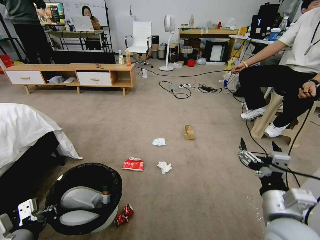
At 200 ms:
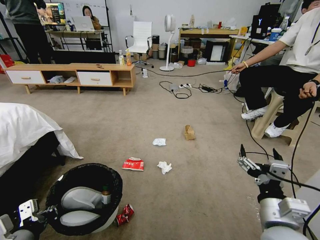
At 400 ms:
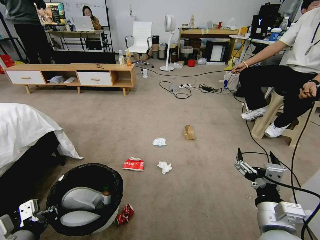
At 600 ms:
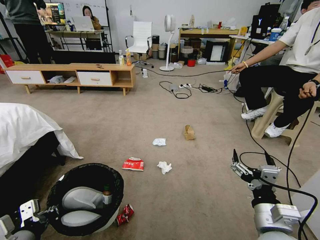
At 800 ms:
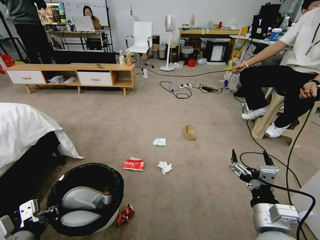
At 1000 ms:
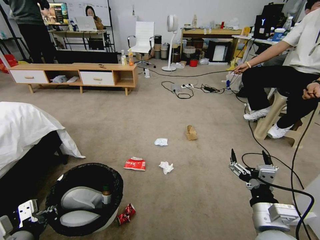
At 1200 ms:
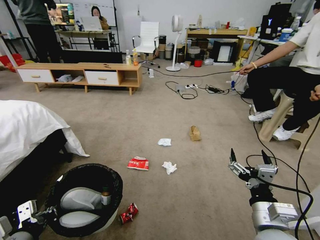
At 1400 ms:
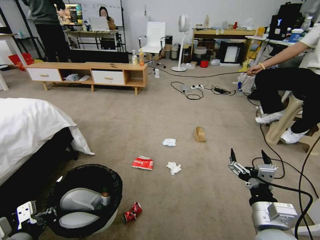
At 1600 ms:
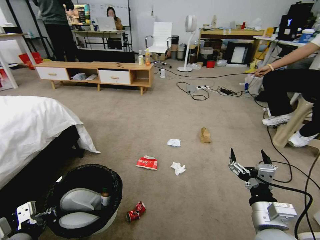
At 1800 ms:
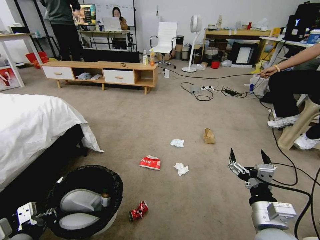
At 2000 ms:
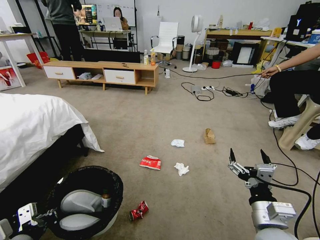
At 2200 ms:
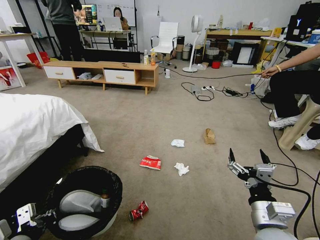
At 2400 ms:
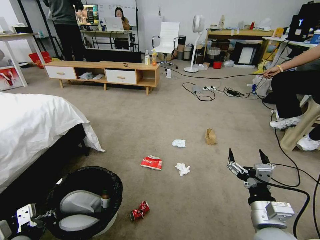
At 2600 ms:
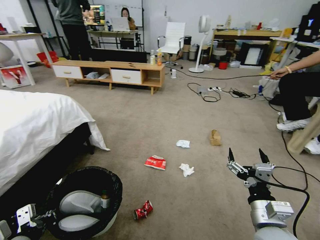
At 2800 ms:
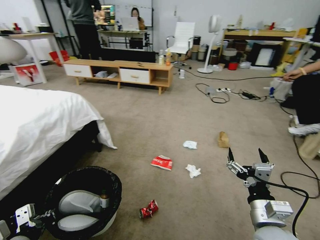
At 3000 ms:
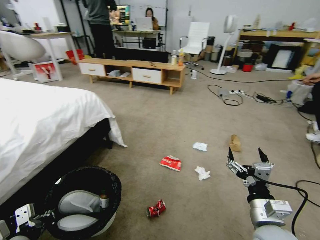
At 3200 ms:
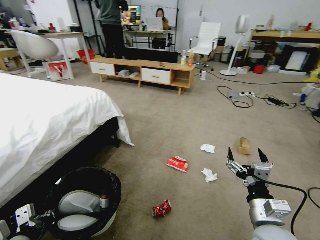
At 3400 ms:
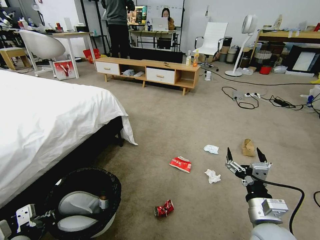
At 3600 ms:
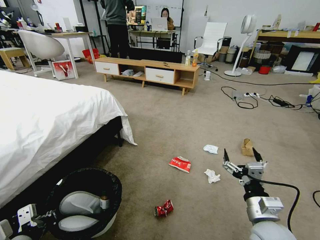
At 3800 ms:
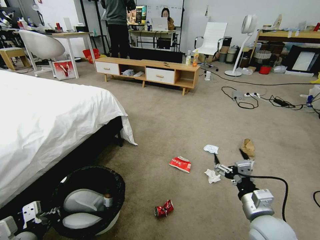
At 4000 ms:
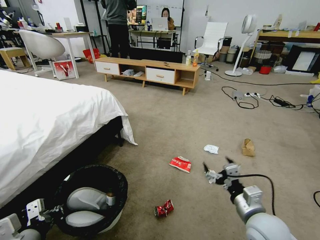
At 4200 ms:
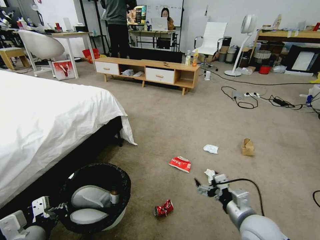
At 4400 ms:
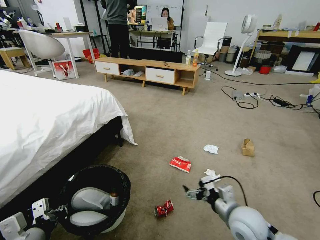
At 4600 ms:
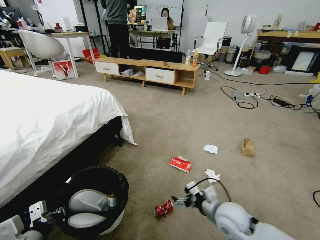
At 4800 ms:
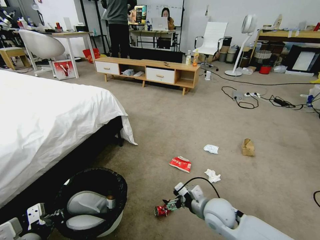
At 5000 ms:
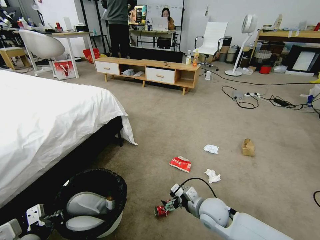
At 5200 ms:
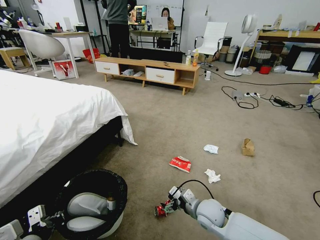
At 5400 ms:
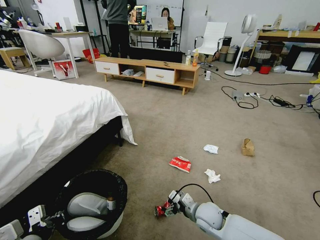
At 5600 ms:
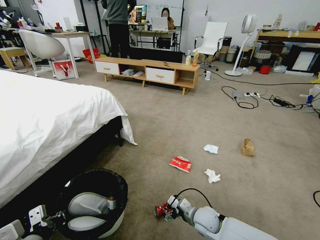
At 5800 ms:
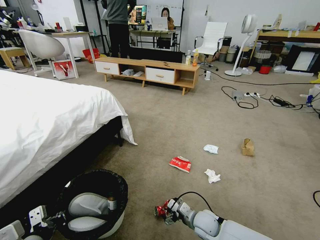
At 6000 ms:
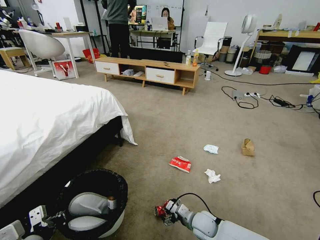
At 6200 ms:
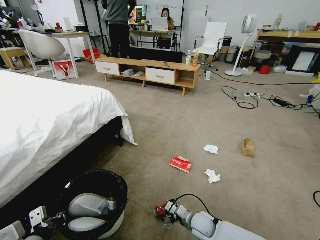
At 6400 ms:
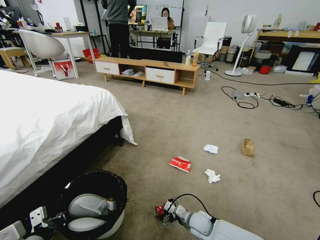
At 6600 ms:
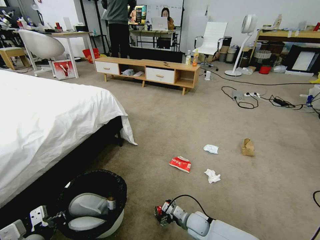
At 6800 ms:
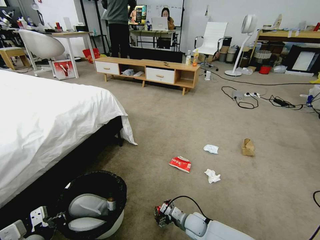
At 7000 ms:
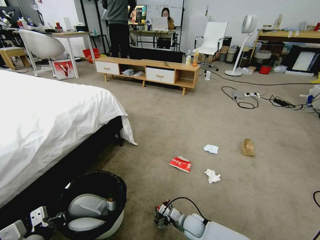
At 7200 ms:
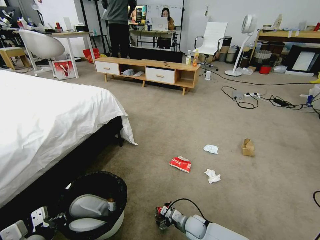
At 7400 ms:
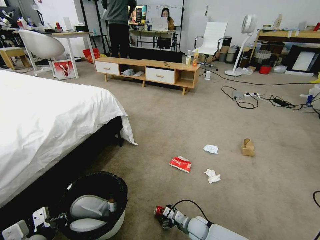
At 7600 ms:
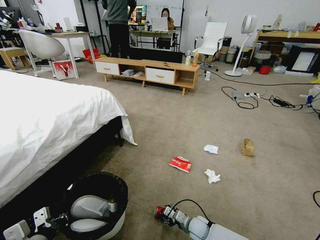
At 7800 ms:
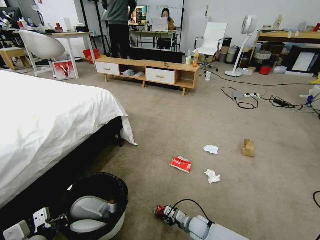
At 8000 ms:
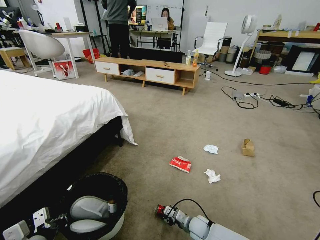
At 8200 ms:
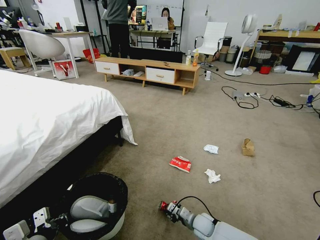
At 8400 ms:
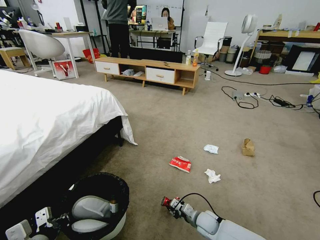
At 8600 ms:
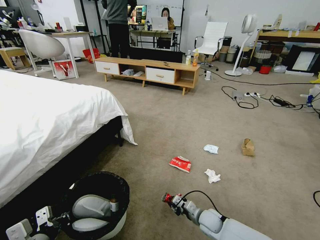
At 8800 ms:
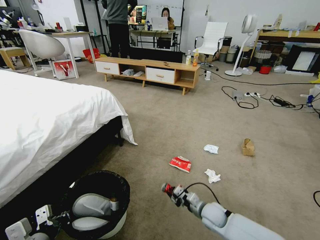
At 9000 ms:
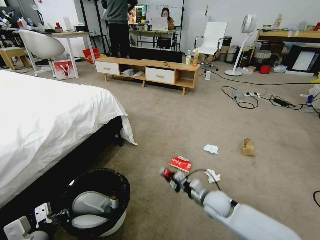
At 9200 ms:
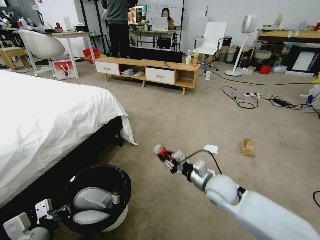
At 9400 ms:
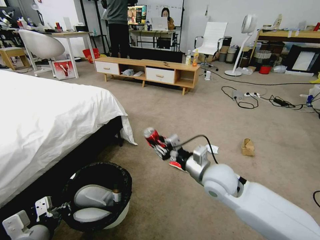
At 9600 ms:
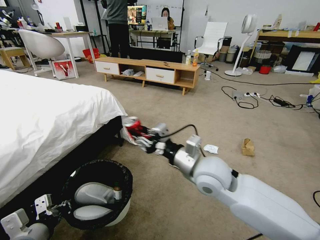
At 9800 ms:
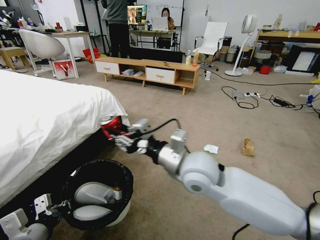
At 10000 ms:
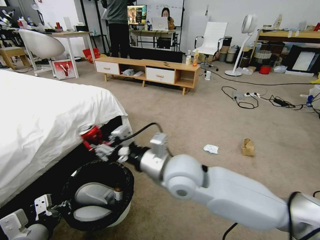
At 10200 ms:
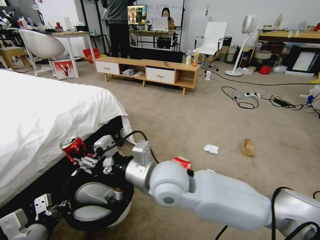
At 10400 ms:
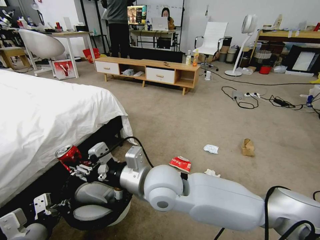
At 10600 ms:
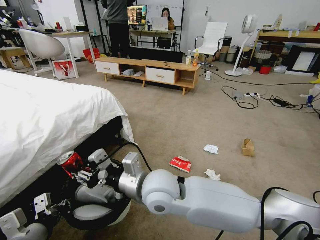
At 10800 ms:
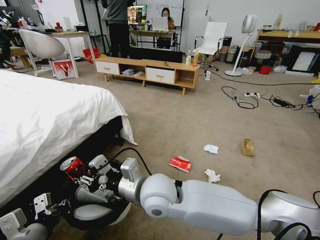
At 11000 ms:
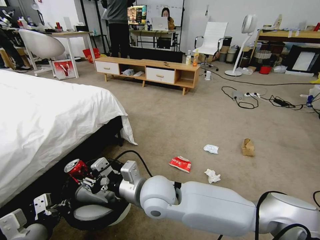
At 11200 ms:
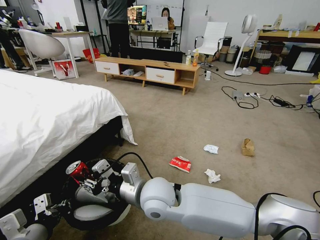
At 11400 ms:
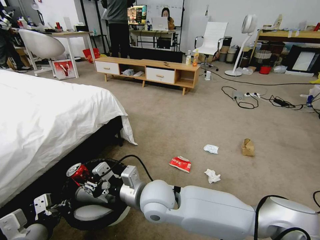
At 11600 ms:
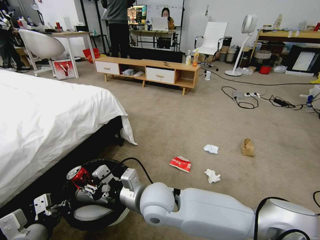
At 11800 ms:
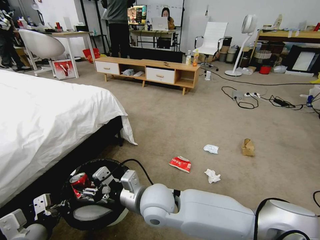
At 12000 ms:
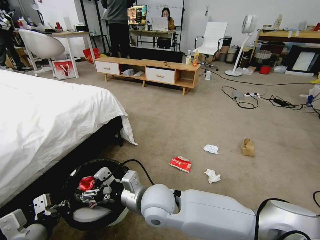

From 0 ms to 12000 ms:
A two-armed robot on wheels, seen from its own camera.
Task of the whole recording: Pick up the trash bin and place the garbage on the floor into it.
From 0 ms to 1600 ms: The right gripper moves some 5 cm.
From 3000 ms to 4400 ms: The right gripper travels forward by approximately 5 cm.
From 4400 ms to 6000 ms: The right gripper is displaced downward and to the left by roughly 20 cm.
From 6000 ms to 7600 ms: The right gripper moves downward, about 10 cm, and closes.
From 7600 ms to 9000 ms: The right gripper heads upward, covering some 20 cm.
From 9000 ms to 10400 ms: The right gripper heads upward and to the left, covering roughly 30 cm.
From 10400 ms to 12000 ms: The right gripper heads downward, covering approximately 10 cm, and opens its fingers.

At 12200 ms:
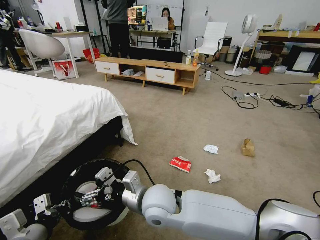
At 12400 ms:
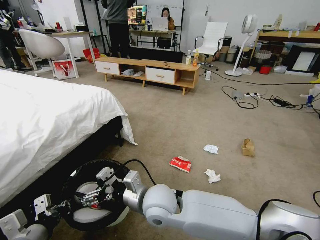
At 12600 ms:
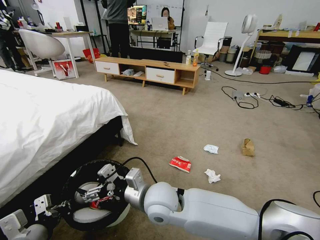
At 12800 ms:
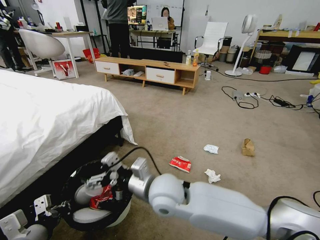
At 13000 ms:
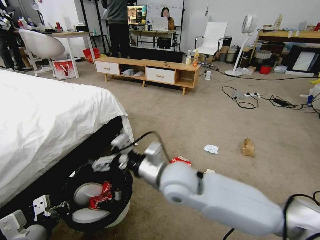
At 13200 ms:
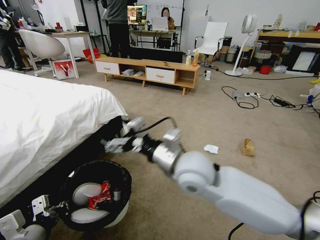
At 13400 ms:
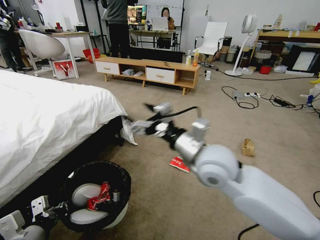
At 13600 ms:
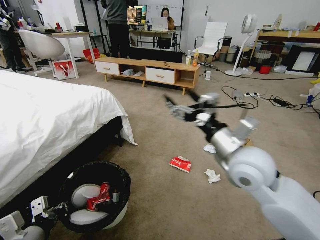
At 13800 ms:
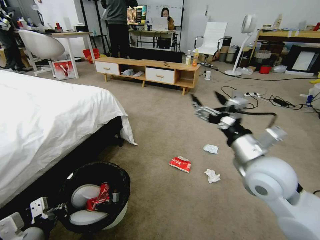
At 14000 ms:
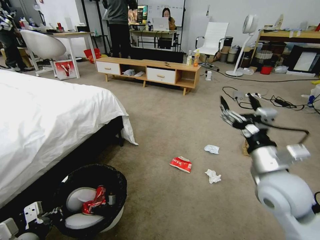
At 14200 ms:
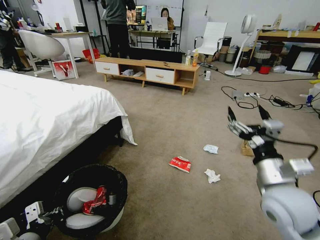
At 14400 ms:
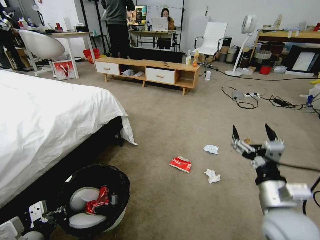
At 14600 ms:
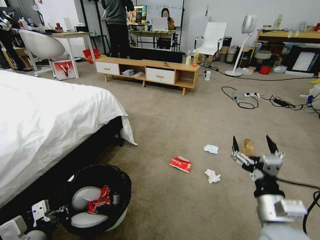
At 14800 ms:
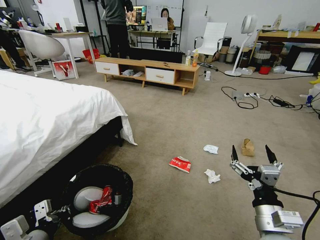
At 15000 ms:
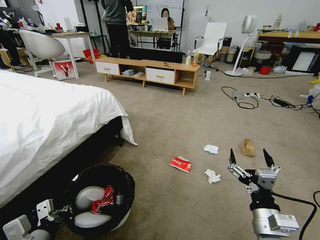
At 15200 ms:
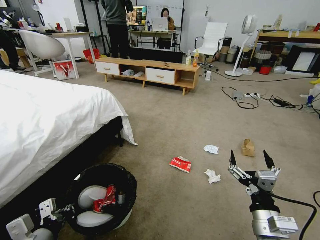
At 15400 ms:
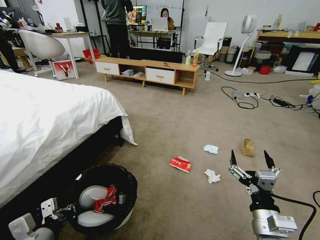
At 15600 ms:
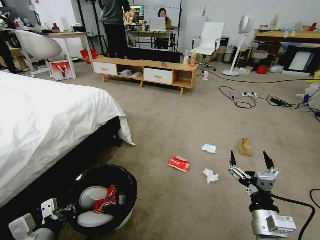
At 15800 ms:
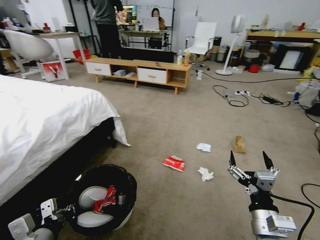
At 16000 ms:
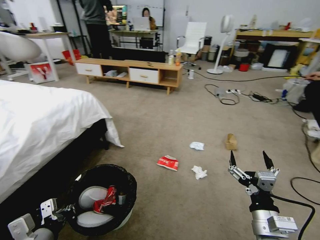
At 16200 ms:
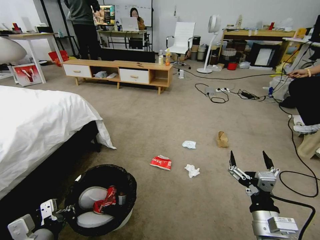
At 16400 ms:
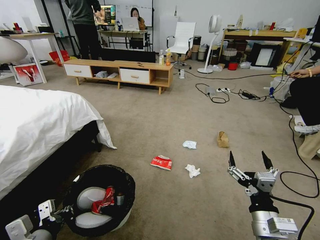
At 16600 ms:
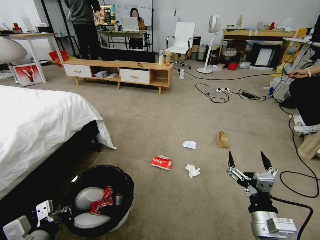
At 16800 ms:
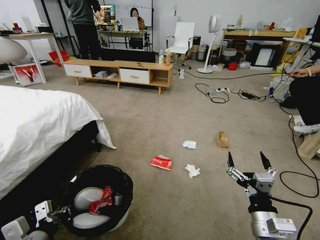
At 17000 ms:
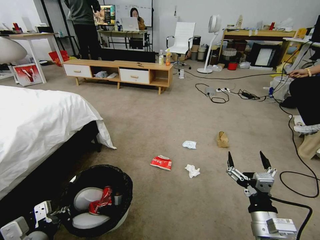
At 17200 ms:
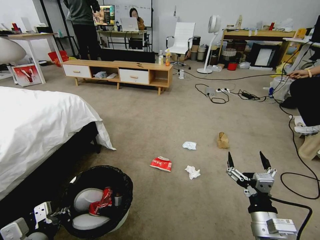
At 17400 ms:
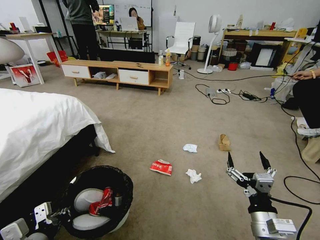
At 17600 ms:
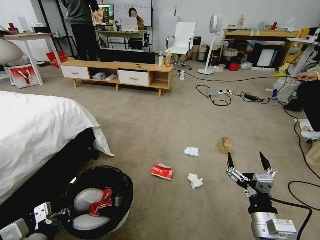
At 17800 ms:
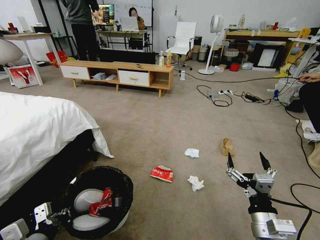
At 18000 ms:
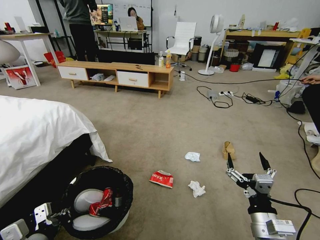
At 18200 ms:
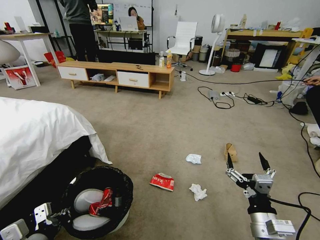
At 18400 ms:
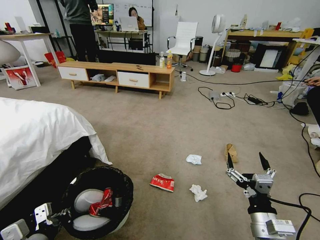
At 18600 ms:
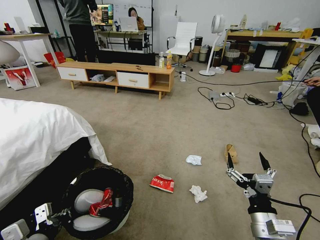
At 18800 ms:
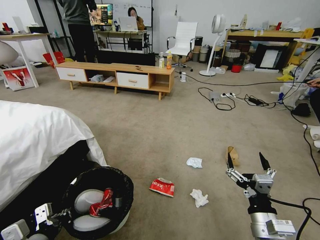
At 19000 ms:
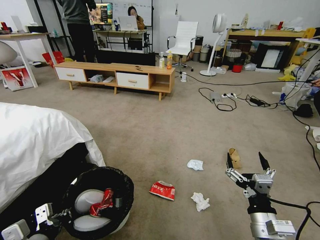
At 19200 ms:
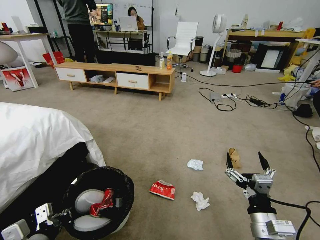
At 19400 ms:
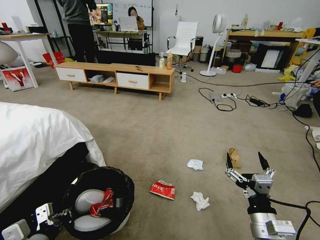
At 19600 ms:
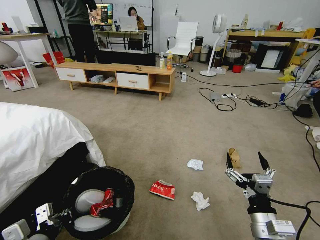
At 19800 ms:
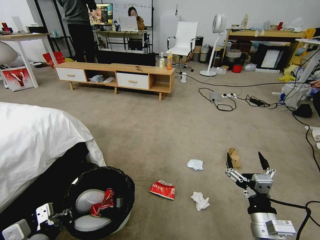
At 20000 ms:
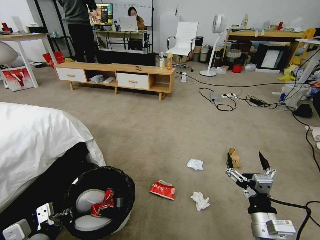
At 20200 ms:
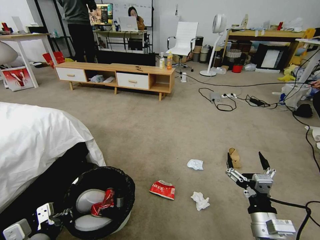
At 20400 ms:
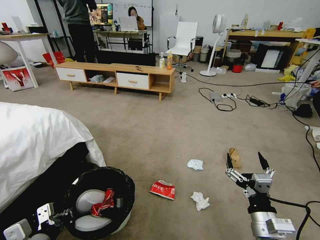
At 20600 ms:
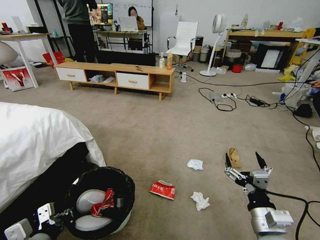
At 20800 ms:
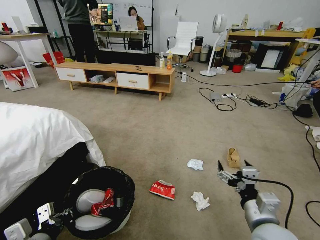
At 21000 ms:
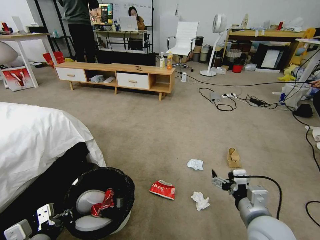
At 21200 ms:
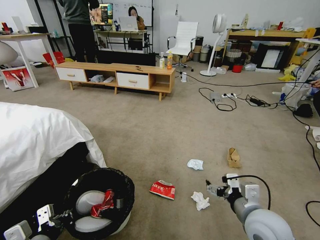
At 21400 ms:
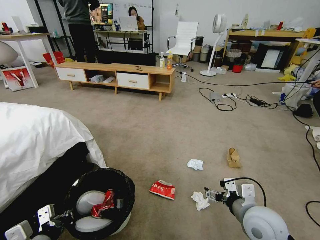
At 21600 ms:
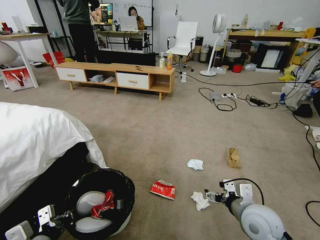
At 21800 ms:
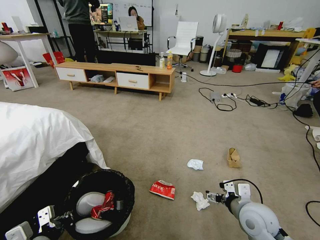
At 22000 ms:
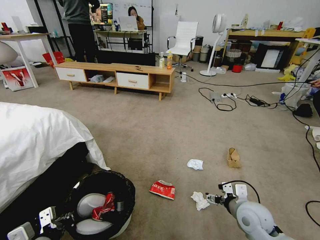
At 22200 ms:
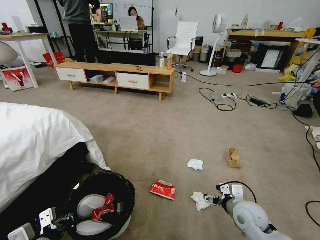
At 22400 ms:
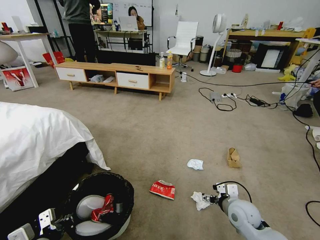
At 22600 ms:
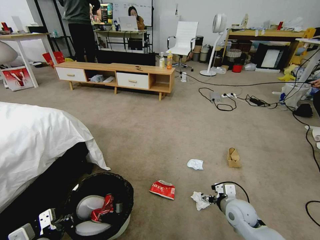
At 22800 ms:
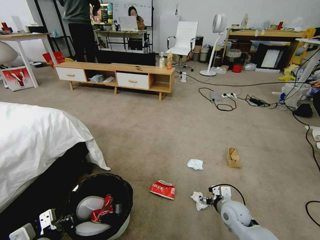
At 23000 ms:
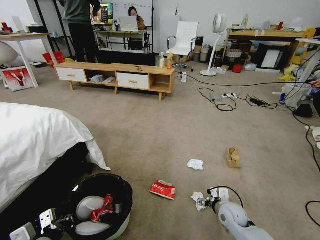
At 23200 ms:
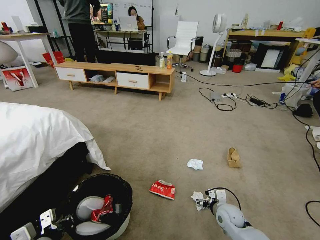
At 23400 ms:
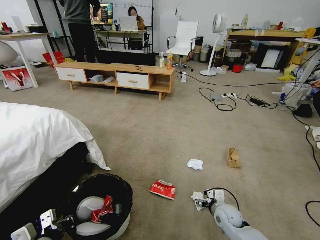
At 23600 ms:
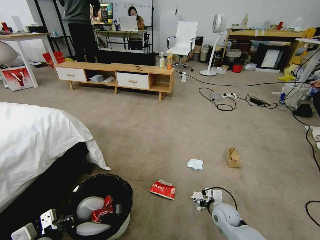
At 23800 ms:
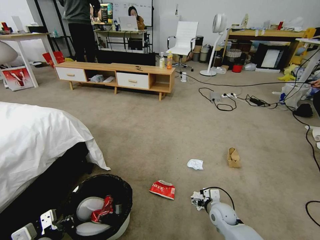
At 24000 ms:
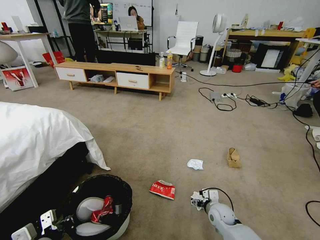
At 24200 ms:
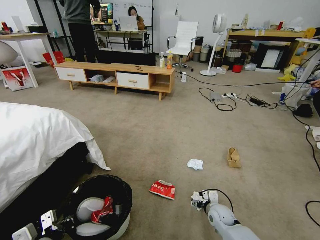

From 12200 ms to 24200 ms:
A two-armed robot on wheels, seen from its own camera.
Task of the whole recording: Pick up the trash bin and place the garbage on the floor into it.
From 12200 ms to 13800 ms: The right gripper travels to the right and upward by roughly 30 cm.
From 13800 ms to 15200 ms: The right gripper shifts roughly 20 cm downward and backward.
From 18200 ms to 19800 ms: Both grippers stay about where they are.
From 19800 ms to 21200 ms: The right gripper moves forward, roughly 5 cm.
From 21200 ms to 22600 ms: The right gripper heads downward and forward, covering approximately 15 cm.
From 22600 ms to 24200 ms: The right gripper moves downward, about 10 cm.
